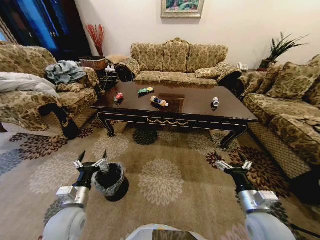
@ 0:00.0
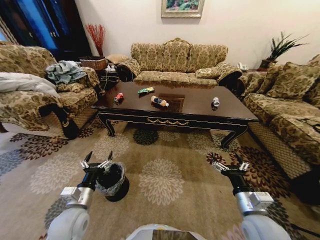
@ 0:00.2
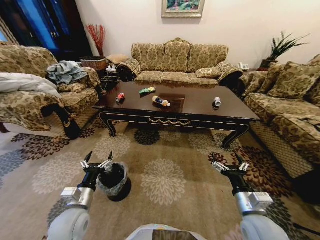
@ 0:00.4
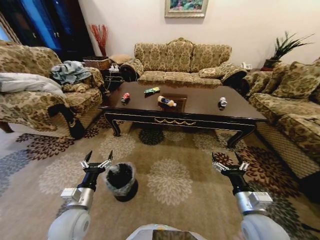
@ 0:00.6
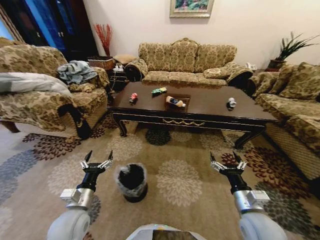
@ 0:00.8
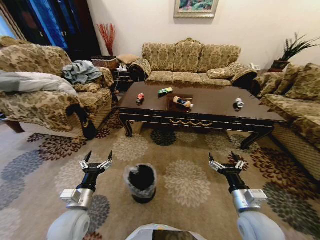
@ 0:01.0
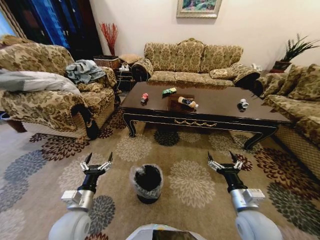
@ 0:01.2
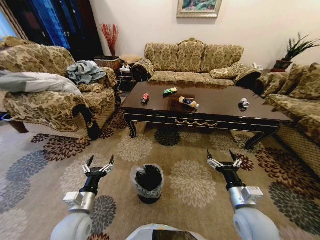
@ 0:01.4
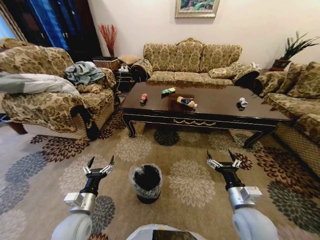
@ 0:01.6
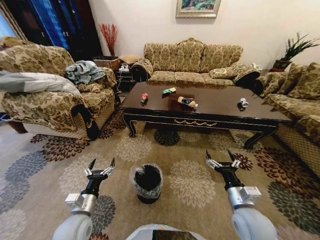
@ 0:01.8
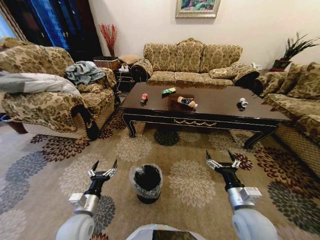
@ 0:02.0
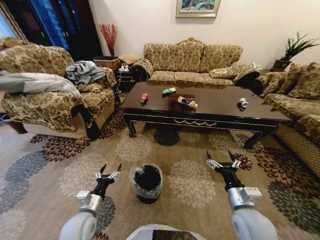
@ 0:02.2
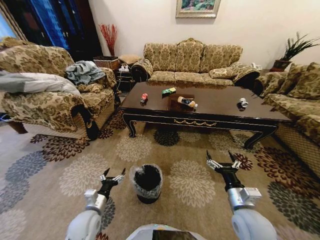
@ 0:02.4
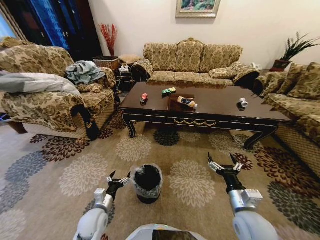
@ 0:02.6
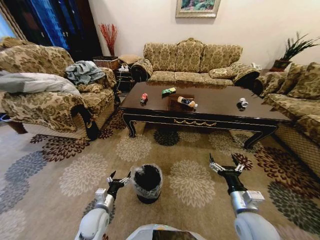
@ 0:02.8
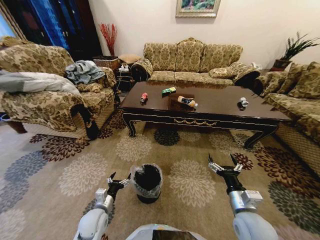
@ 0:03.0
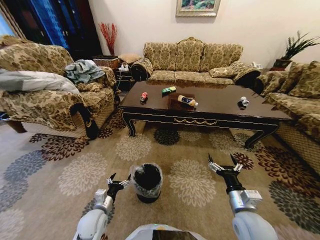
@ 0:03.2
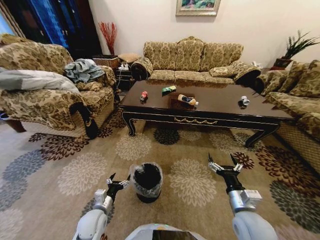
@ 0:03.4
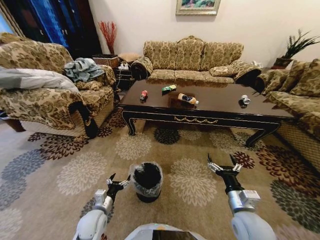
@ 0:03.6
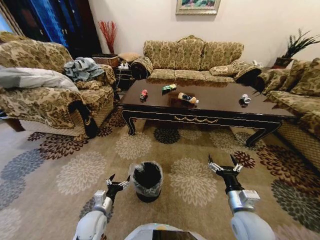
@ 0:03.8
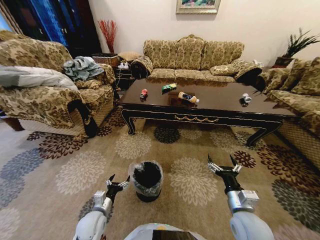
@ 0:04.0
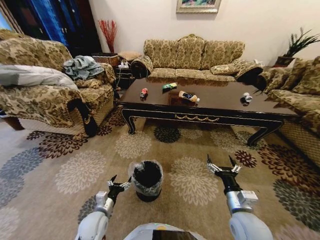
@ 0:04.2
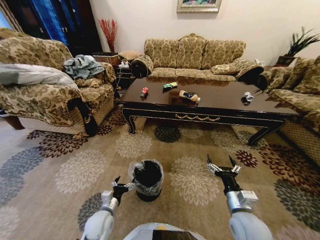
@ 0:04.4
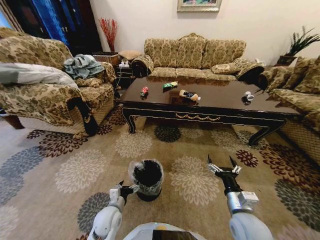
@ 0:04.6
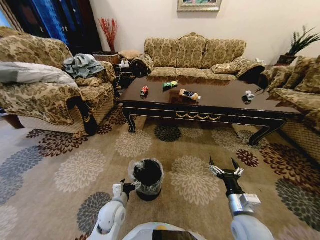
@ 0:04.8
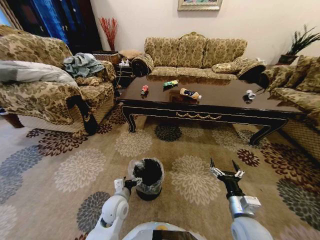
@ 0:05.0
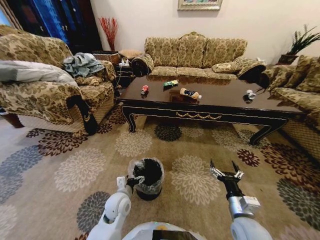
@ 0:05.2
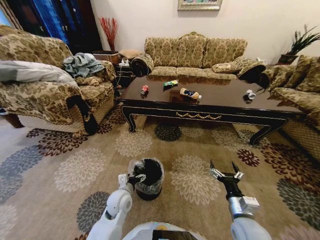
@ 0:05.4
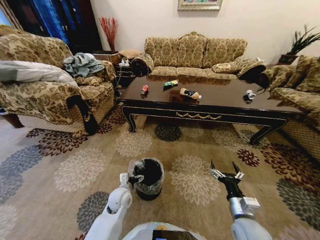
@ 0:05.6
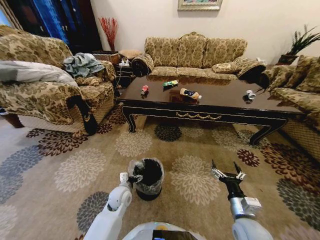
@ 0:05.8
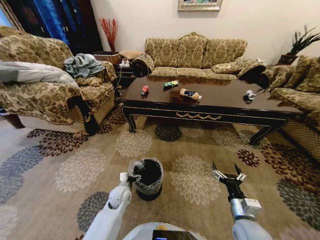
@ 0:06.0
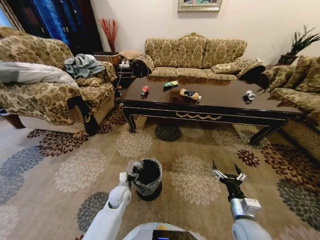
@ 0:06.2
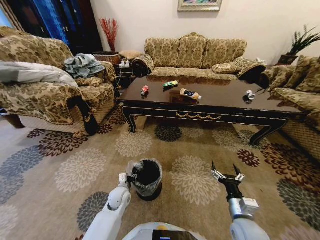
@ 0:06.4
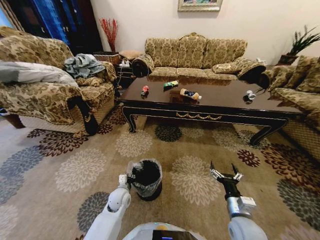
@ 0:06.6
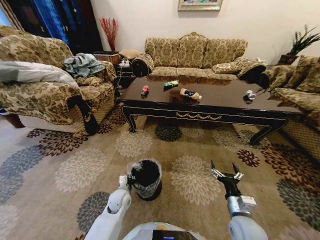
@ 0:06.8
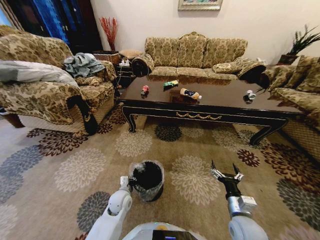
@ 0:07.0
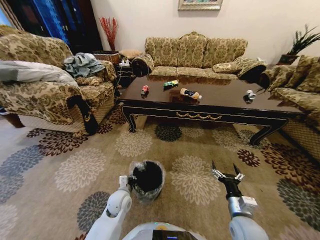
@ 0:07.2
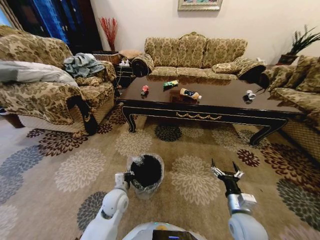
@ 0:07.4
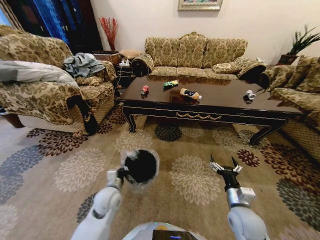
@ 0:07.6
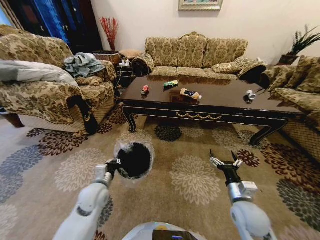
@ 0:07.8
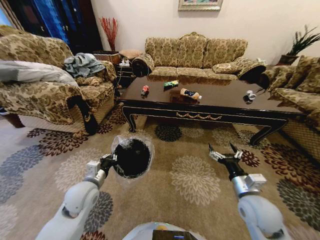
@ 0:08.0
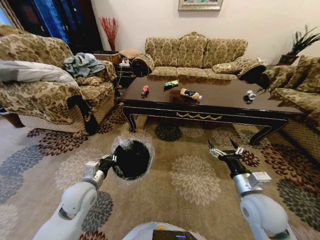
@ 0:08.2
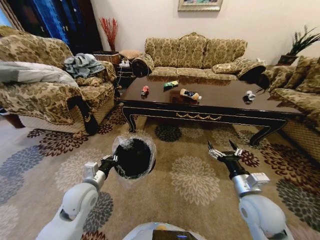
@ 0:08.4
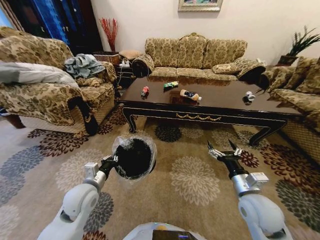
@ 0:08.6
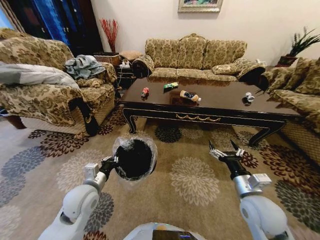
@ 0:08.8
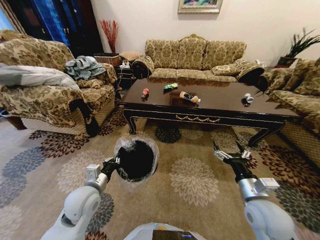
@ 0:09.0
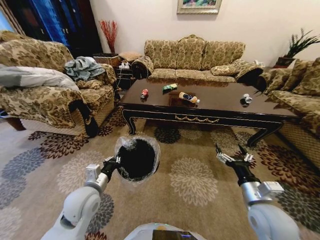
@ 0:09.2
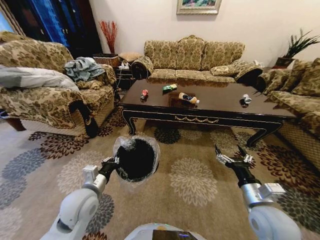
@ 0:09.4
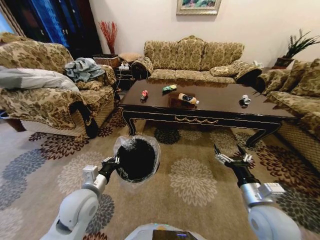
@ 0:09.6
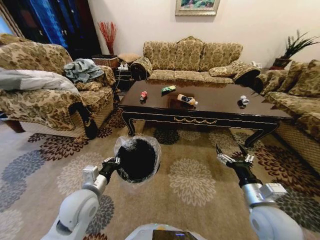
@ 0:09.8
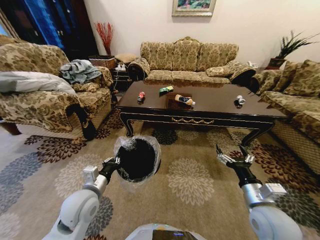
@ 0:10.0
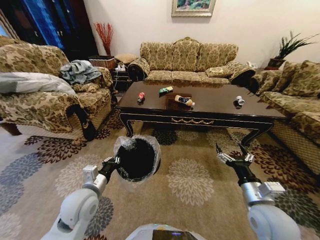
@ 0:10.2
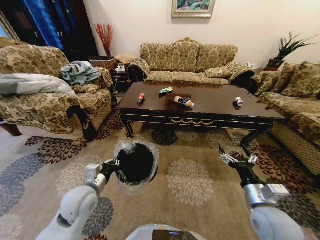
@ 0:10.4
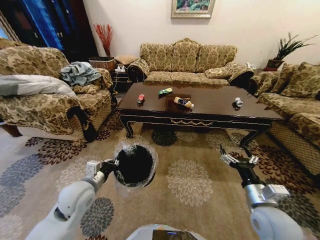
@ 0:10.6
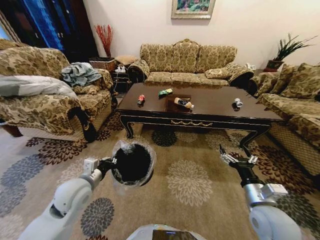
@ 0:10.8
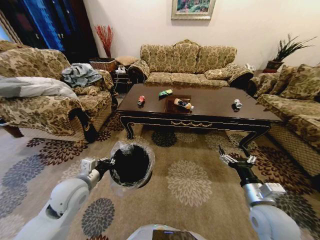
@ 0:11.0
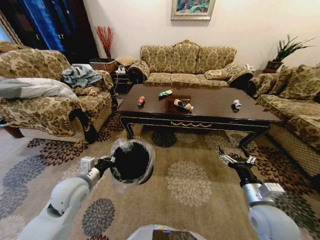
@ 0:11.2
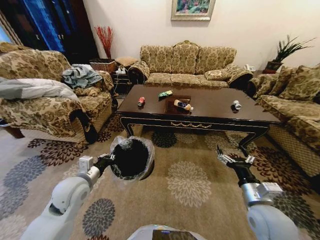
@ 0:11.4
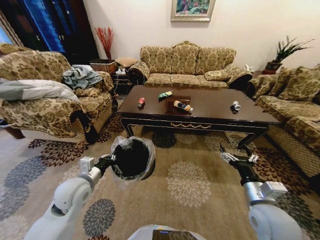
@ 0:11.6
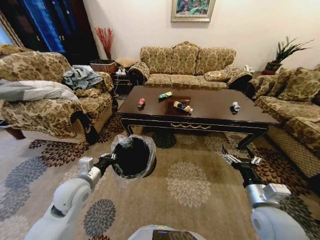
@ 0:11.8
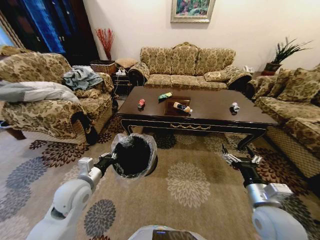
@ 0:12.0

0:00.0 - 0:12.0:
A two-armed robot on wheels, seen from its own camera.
Task of the whole recording: Move to the front of the table and place the trash on the table into the trash bin.
0:01.6 - 0:03.0: The left gripper travels downward by approximately 10 cm.
0:04.4 - 0:06.0: The left gripper goes about 10 cm forward.
0:06.0 - 0:07.6: The left gripper heads upward, covering roughly 10 cm, and closes its fingers.
0:07.6 - 0:09.0: The right gripper is displaced upward by about 10 cm. The left gripper shifts roughly 10 cm upward and to the left.

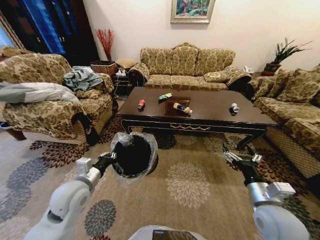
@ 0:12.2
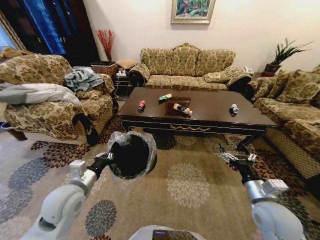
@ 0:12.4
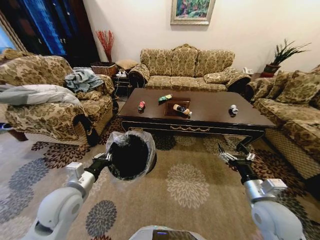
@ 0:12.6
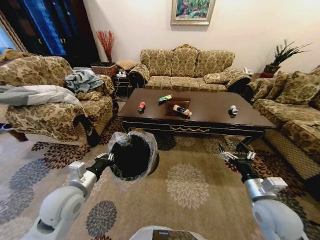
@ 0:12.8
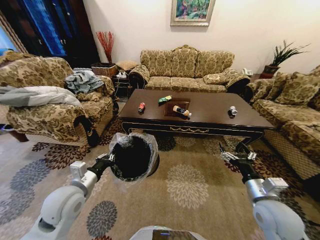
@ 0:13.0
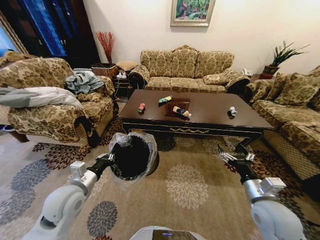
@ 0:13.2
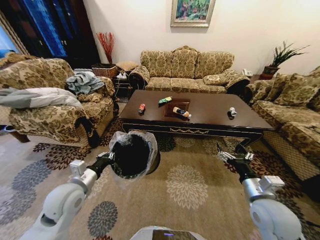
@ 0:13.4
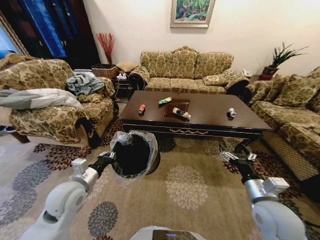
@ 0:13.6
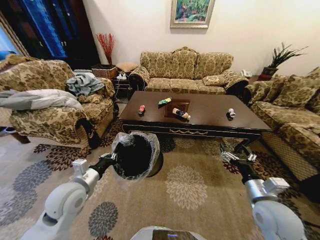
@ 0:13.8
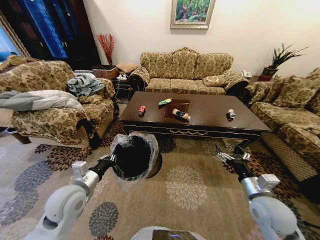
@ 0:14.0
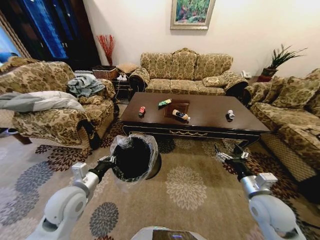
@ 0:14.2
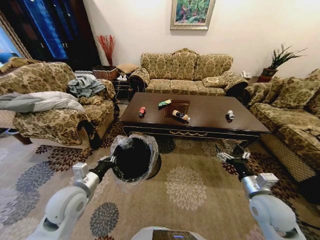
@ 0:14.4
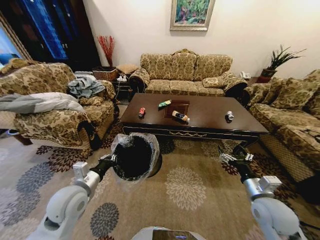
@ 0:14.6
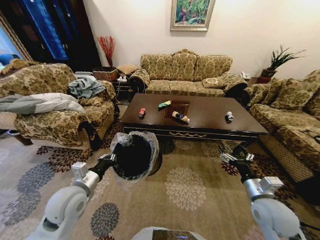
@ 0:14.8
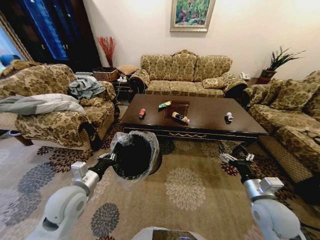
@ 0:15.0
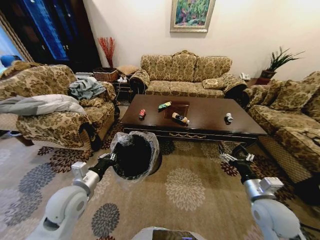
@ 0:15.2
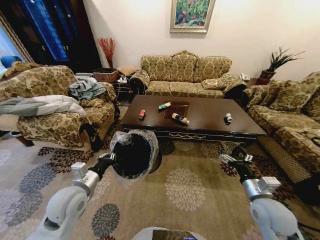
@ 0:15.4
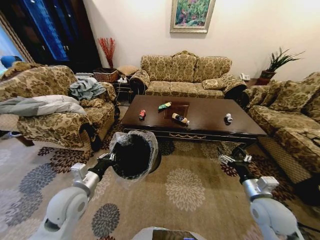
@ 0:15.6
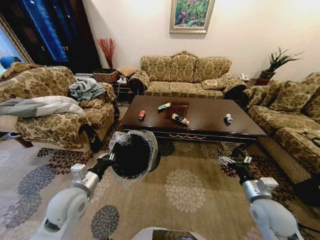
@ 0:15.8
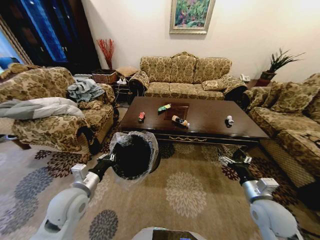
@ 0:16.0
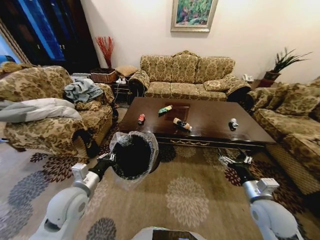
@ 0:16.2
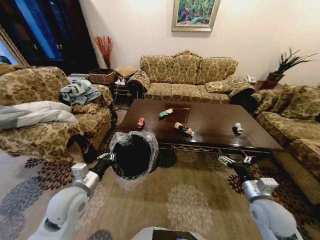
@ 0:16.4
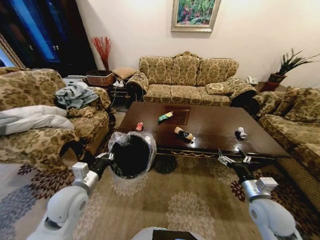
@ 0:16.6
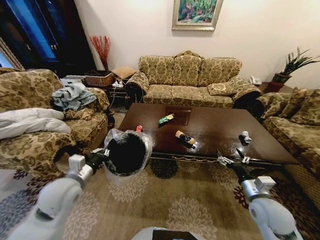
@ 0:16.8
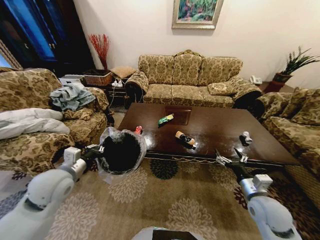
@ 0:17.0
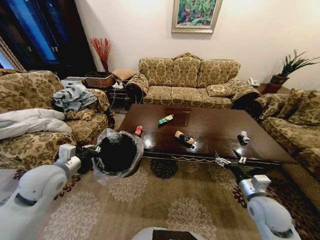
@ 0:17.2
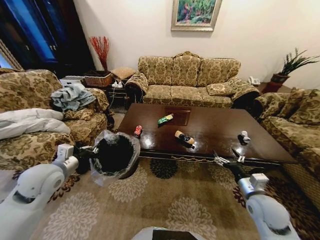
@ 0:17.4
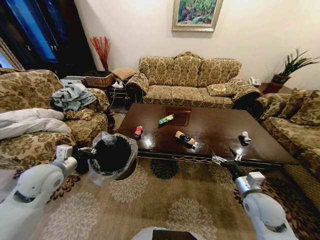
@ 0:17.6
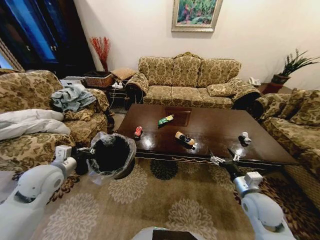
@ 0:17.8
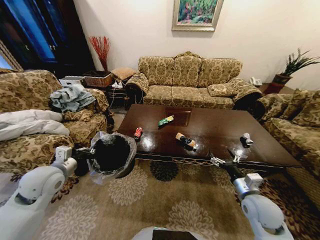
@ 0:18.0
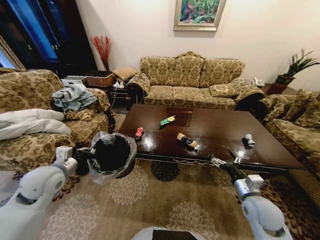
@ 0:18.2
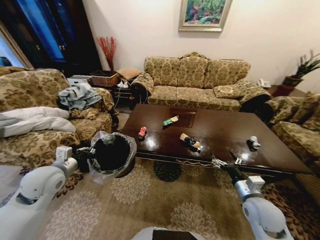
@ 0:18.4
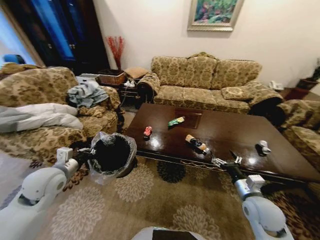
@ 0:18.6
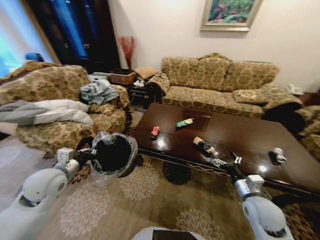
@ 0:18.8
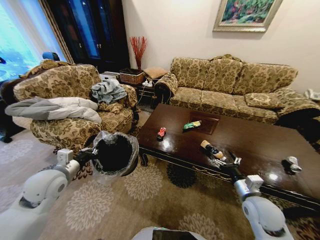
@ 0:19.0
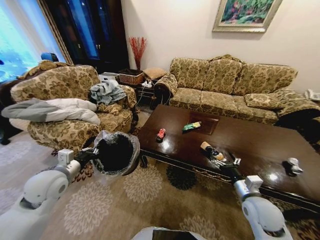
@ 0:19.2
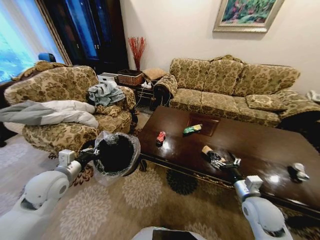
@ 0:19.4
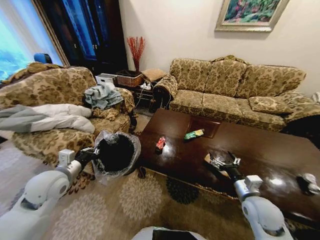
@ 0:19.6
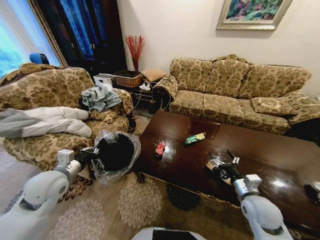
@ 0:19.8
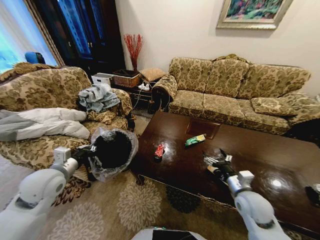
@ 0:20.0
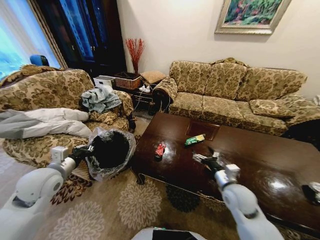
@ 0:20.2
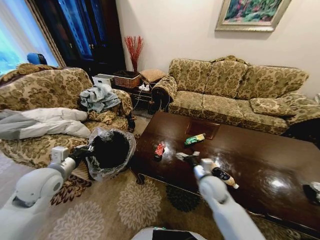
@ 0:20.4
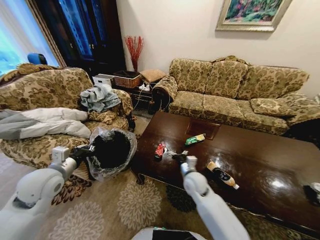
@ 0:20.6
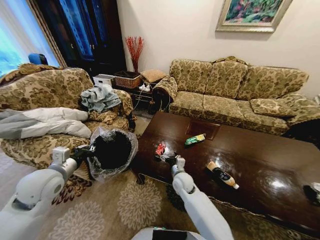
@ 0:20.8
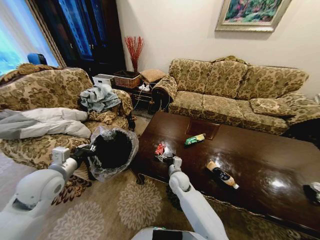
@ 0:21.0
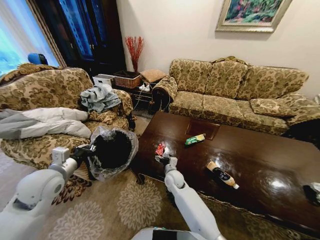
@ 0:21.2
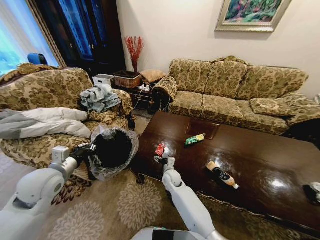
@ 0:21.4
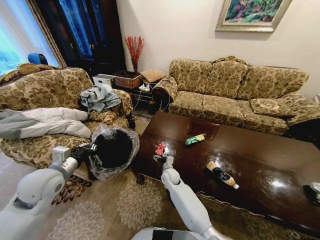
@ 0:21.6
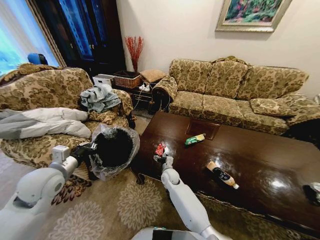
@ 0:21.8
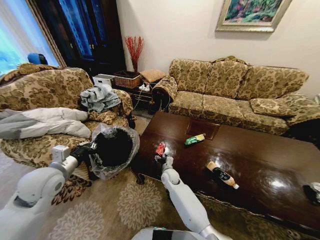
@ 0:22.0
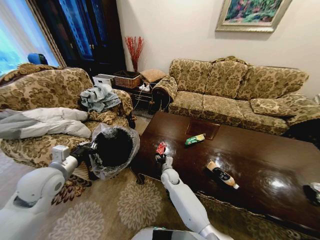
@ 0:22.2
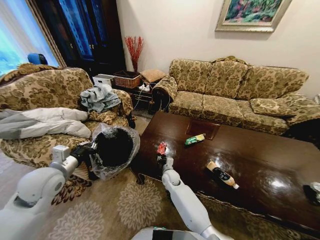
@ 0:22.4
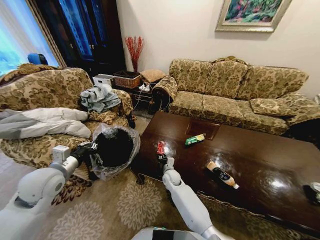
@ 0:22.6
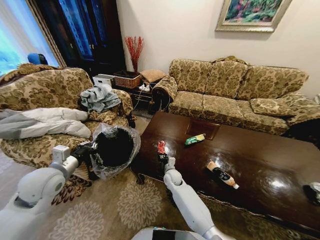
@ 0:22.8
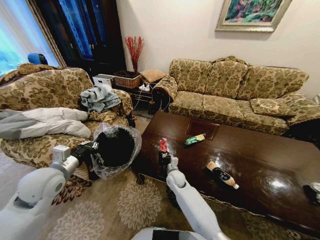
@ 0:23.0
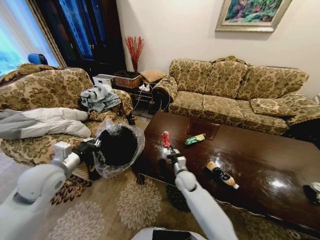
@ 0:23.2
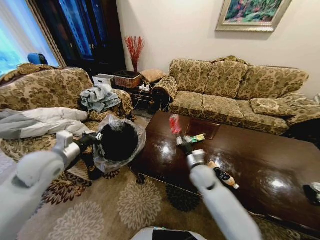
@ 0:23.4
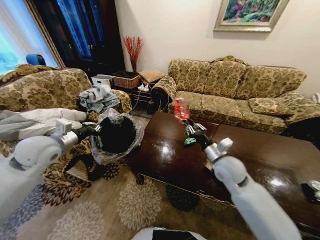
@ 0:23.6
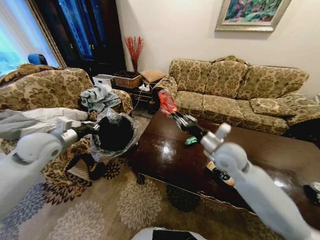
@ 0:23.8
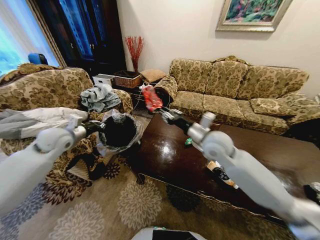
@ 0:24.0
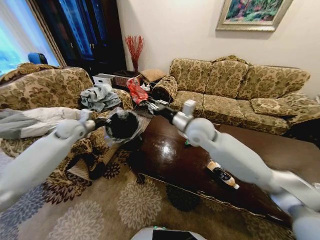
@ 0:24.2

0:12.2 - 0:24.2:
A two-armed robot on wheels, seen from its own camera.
Task of the whole recording: Move to the front of the table and place the trash on the table into the trash bin.
0:16.6 - 0:18.2: The left gripper travels to the left by some 10 cm.
0:19.8 - 0:21.2: The right gripper is displaced to the left, forward and downward by about 35 cm.
0:21.2 - 0:22.6: The right gripper closes.
0:22.6 - 0:24.2: The left gripper is displaced forward by some 20 cm. The right gripper travels upward by some 35 cm.
